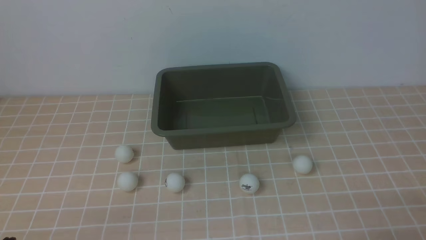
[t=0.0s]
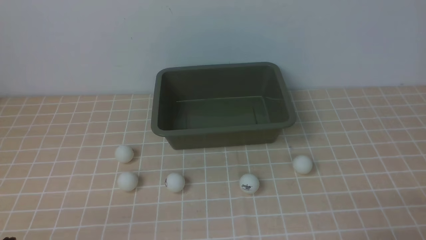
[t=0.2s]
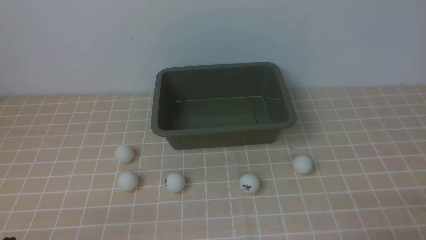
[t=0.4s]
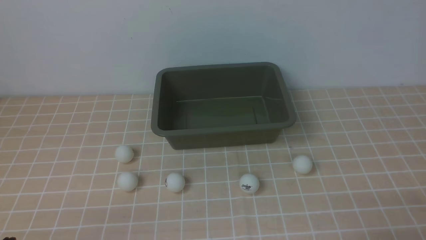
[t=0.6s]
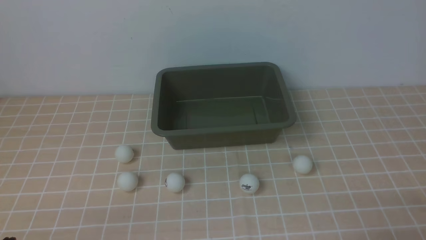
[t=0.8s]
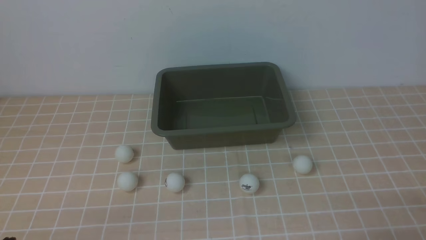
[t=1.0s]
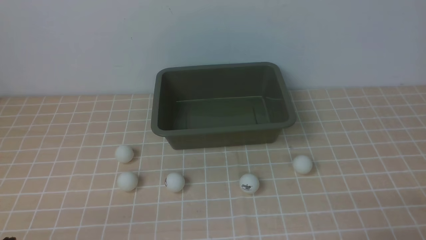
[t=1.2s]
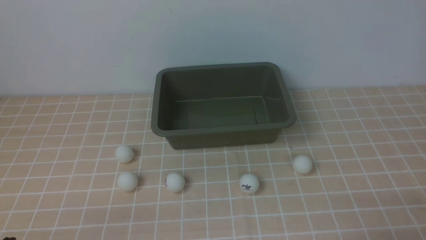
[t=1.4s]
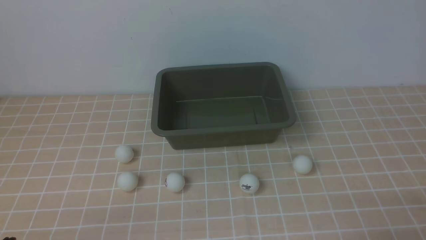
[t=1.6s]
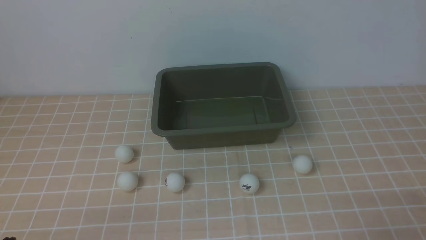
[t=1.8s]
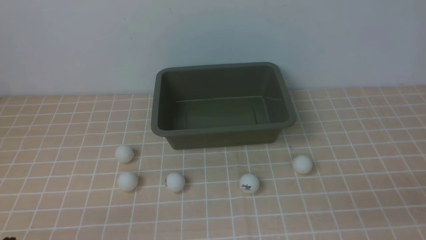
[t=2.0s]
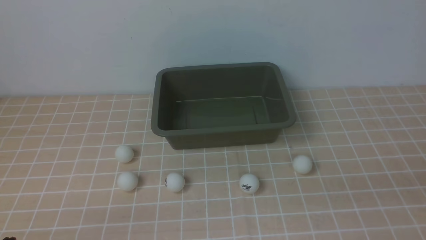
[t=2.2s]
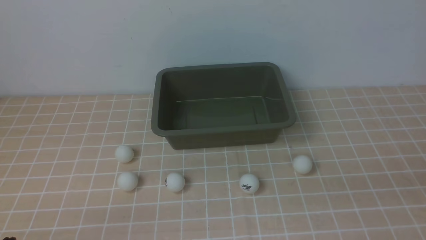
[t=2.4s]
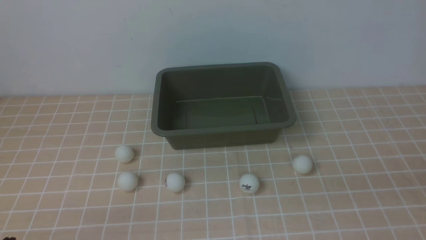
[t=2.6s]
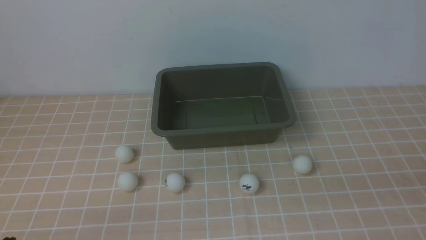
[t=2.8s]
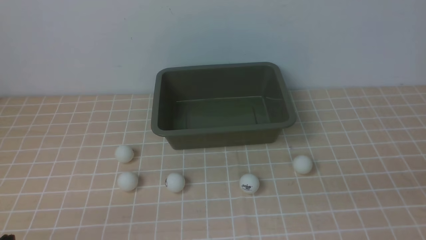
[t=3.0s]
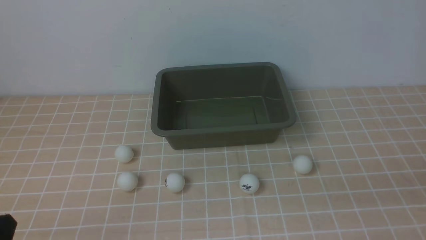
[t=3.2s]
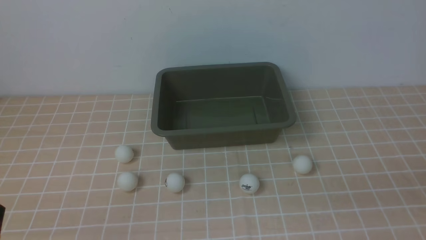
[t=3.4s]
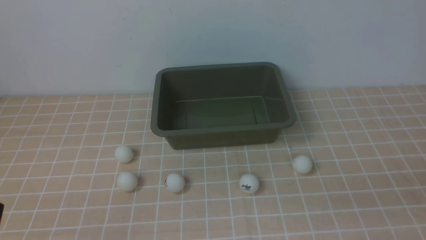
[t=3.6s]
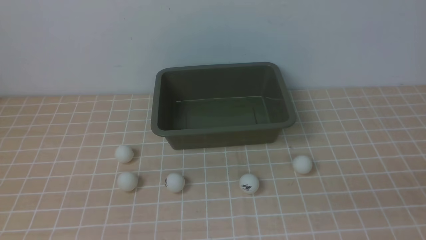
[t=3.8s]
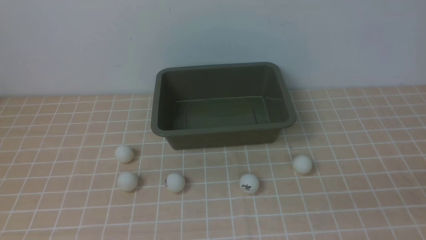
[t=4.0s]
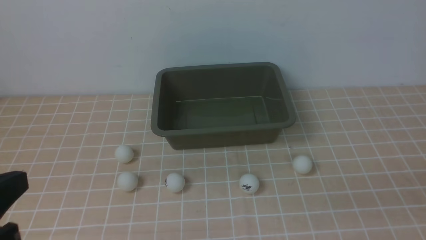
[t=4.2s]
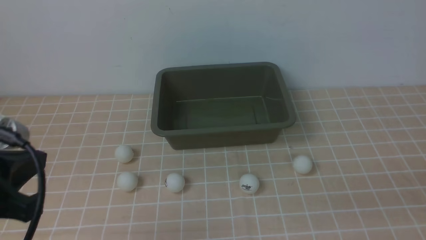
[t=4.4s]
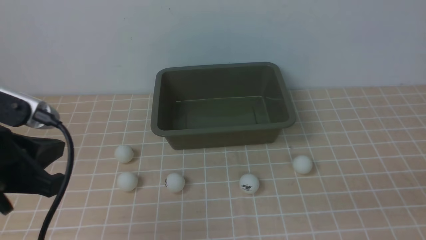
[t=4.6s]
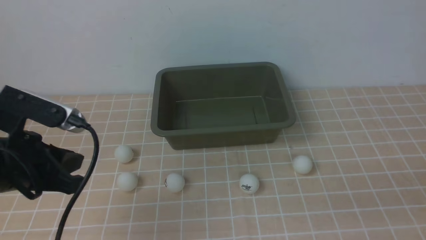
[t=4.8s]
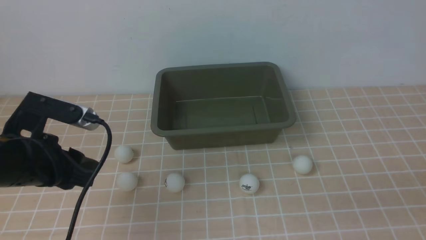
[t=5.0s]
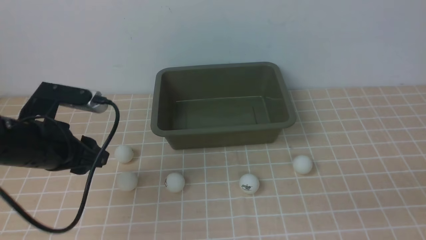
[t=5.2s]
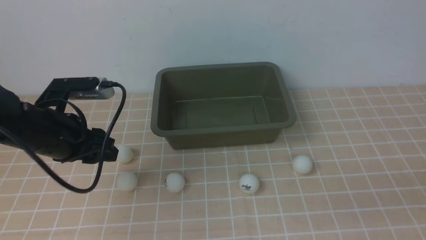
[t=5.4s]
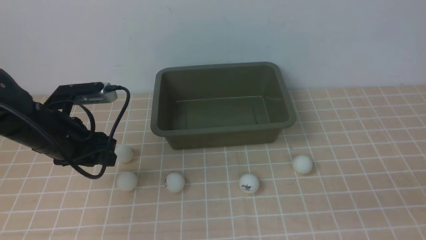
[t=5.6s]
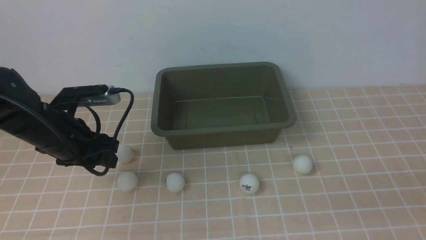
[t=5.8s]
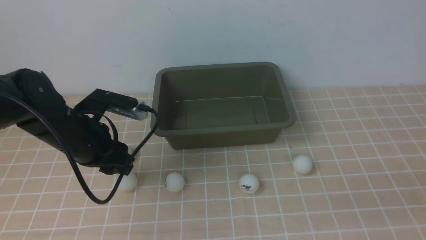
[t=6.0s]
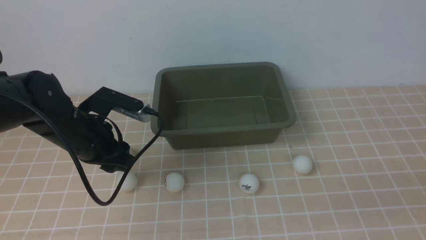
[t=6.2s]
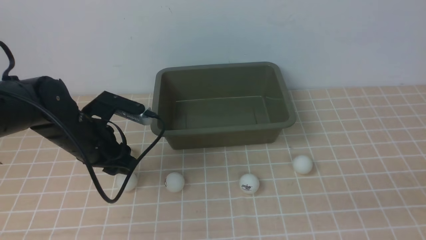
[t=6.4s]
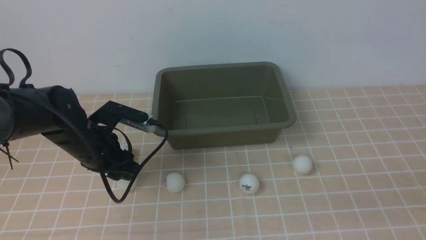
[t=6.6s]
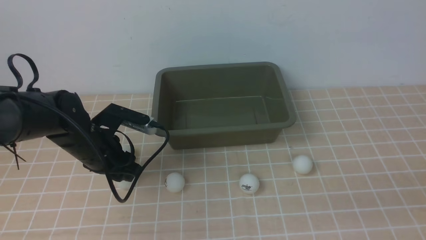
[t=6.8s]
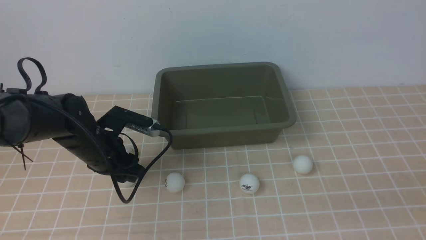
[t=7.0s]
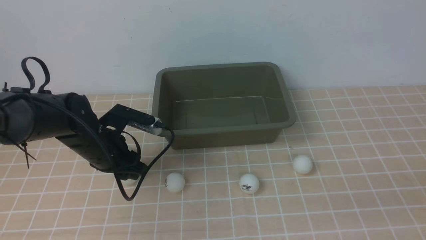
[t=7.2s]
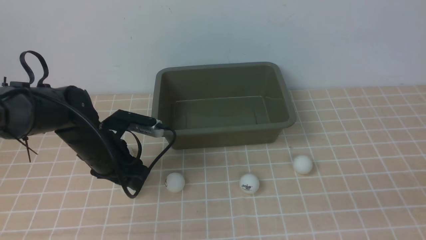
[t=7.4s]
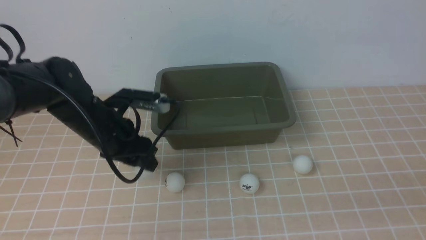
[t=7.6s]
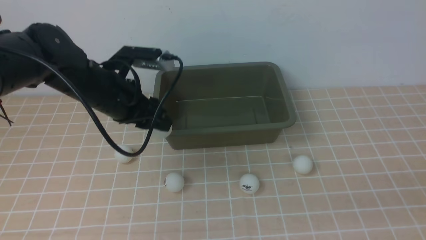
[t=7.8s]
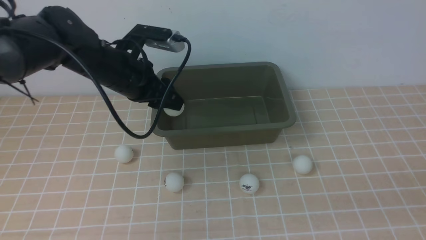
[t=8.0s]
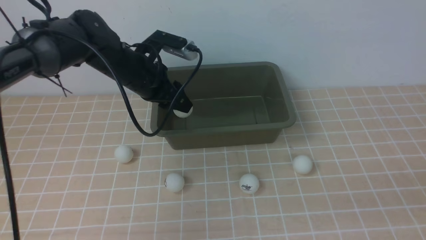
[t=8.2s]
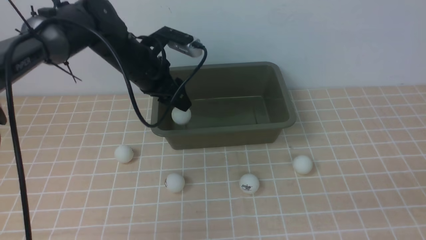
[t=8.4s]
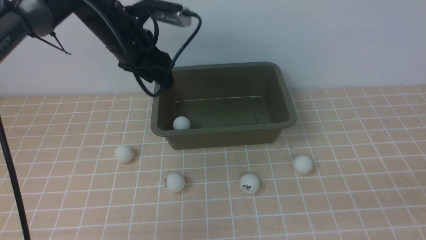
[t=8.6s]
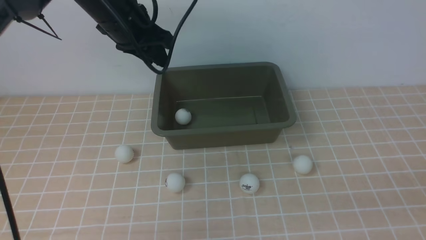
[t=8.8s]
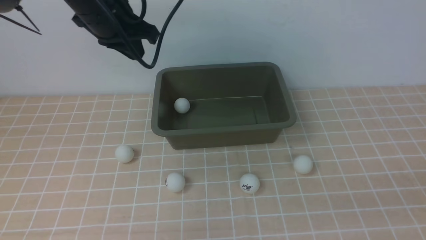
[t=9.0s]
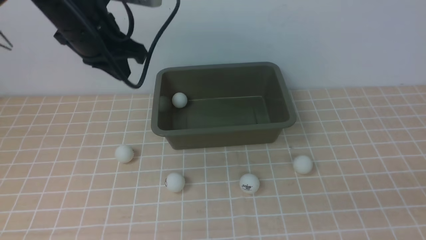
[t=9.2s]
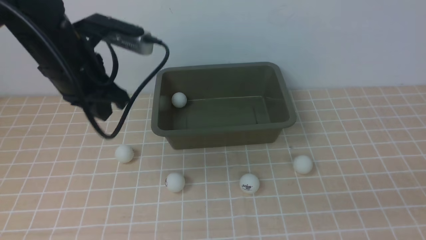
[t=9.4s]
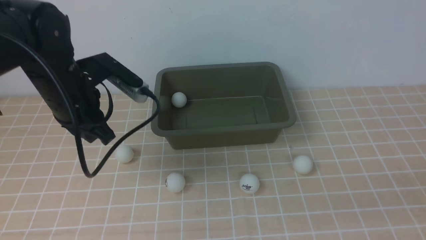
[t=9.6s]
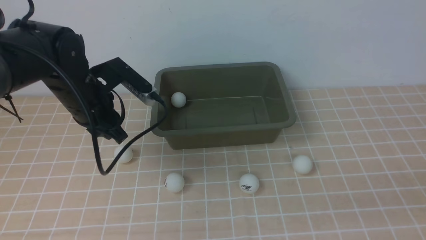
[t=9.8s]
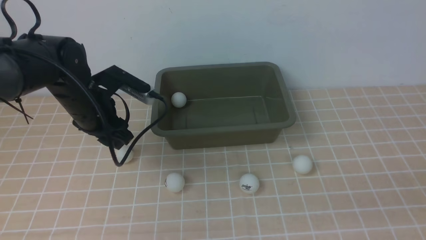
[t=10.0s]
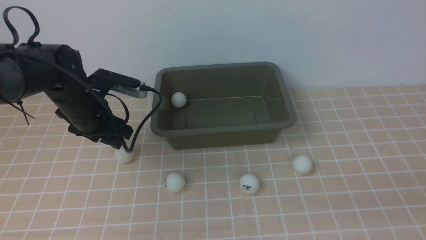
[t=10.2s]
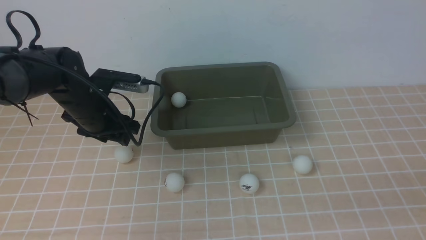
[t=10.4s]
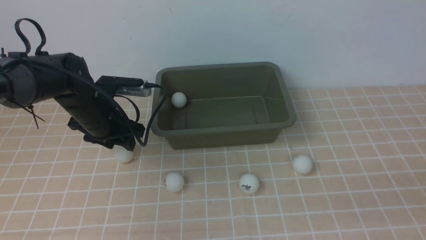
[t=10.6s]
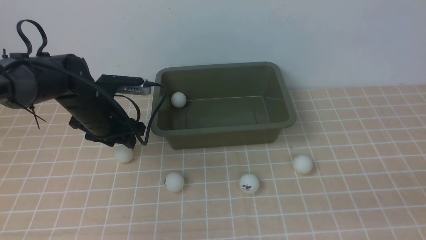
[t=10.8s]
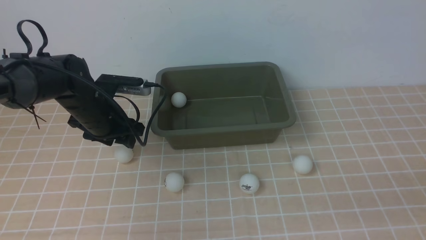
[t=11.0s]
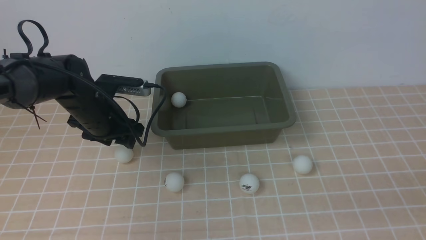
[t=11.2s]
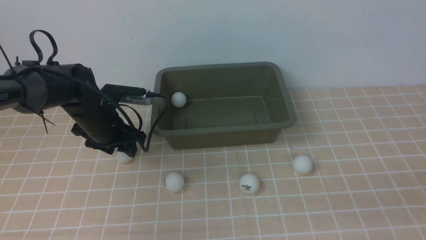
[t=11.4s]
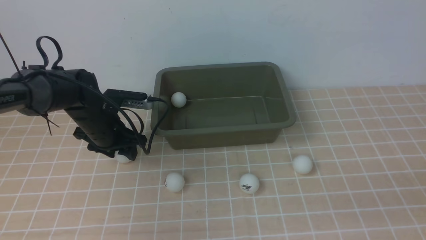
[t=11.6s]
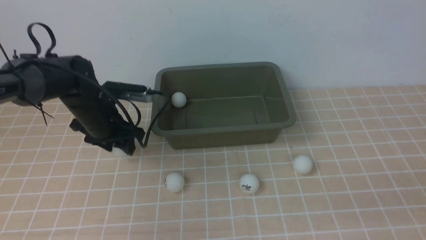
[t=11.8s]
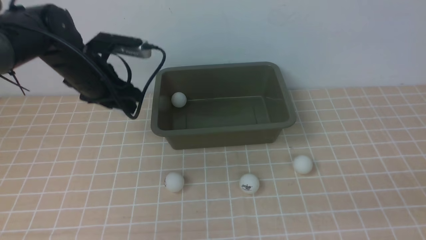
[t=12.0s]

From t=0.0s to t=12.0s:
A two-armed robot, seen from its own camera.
Step, from t=0.0s to t=7.4s: use the left arm to clamp the table tennis ball closest to it.
Step, from t=7.6s to t=8.8s: use the left arm to put the table tennis ball into the box.
From t=0.0s to t=1.6s: Both grippers stay put.
From t=3.0s to t=4.4s: The left gripper heads upward and forward, covering about 15 cm.
From t=4.4s to t=6.0s: The left gripper shifts some 20 cm forward and downward, and opens up.
From t=7.6s to t=9.0s: The left gripper moves upward, some 15 cm, and closes up.
From t=9.0s to t=10.4s: The left gripper shifts some 15 cm downward, and opens up.
From t=10.4s to t=12.0s: The left gripper is displaced upward by approximately 5 cm.

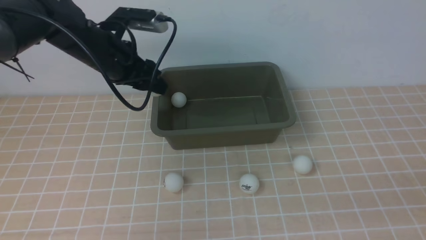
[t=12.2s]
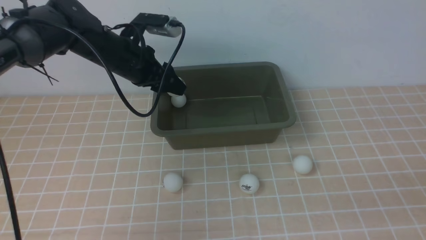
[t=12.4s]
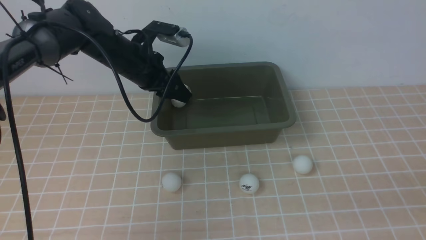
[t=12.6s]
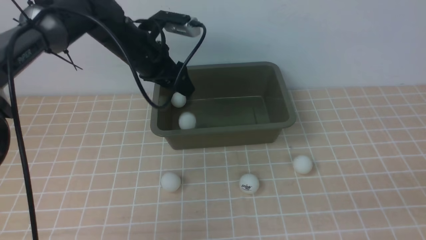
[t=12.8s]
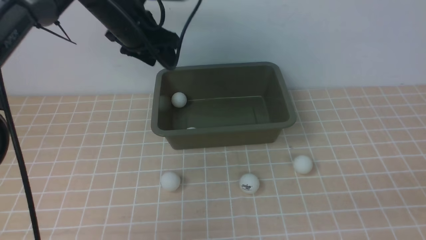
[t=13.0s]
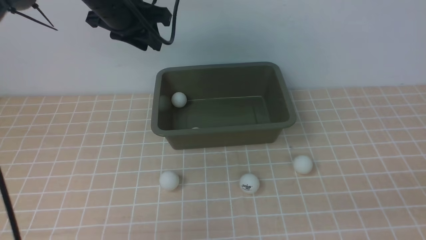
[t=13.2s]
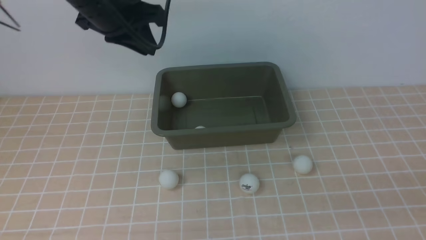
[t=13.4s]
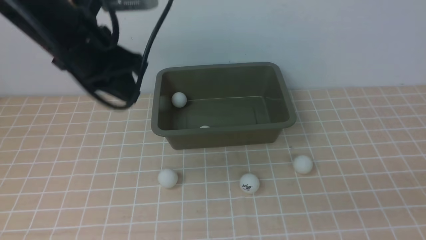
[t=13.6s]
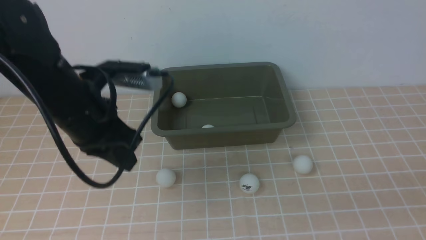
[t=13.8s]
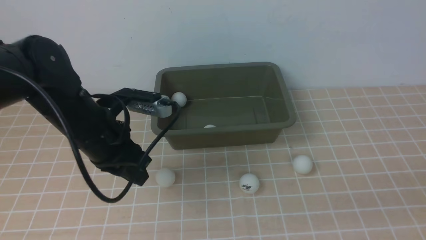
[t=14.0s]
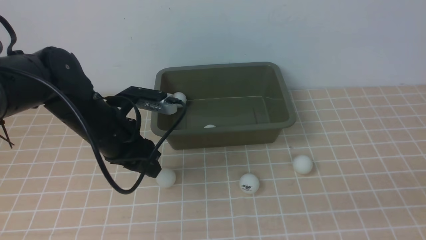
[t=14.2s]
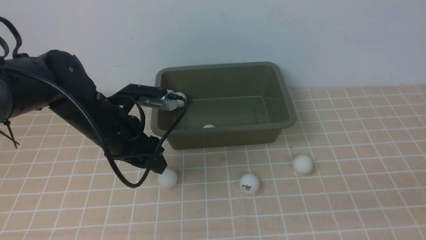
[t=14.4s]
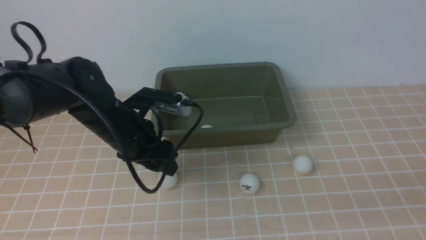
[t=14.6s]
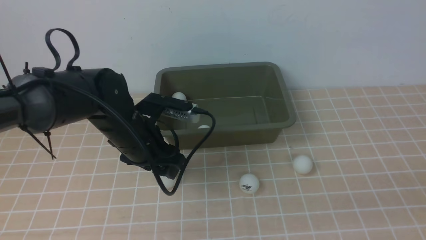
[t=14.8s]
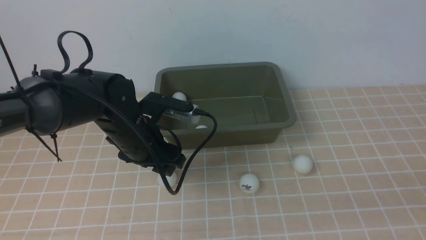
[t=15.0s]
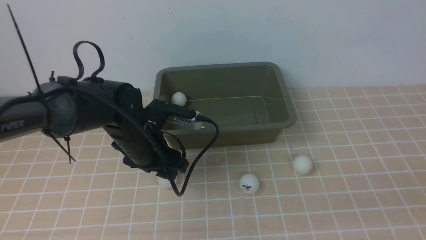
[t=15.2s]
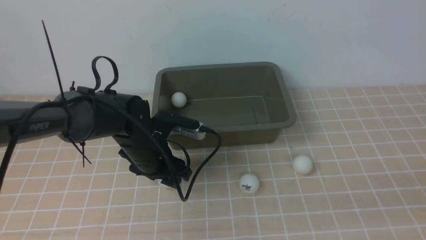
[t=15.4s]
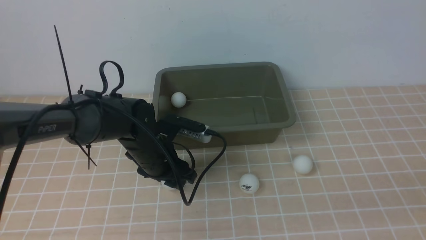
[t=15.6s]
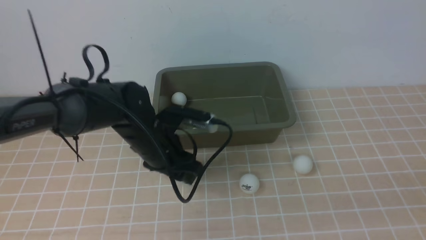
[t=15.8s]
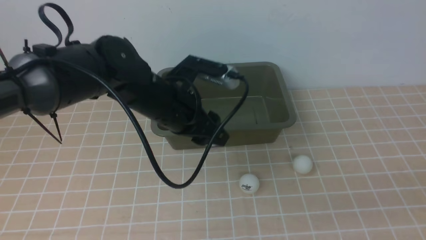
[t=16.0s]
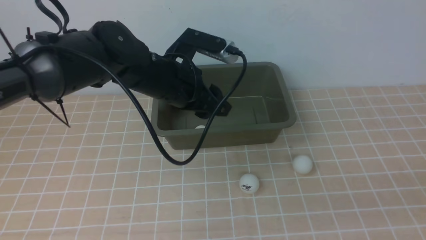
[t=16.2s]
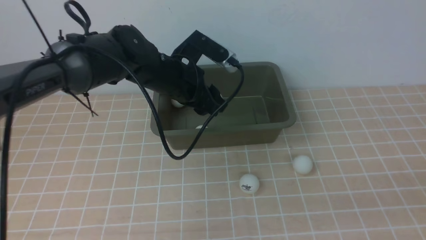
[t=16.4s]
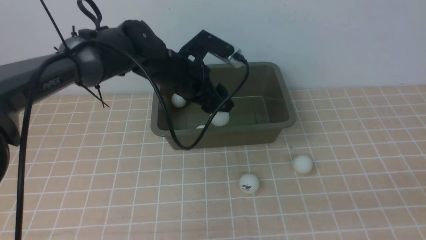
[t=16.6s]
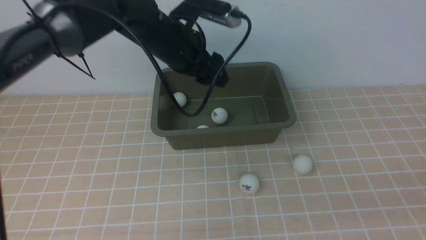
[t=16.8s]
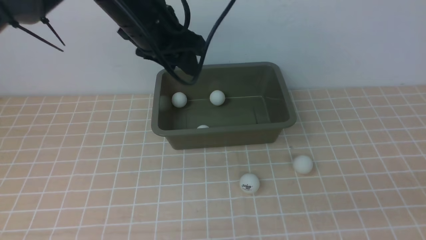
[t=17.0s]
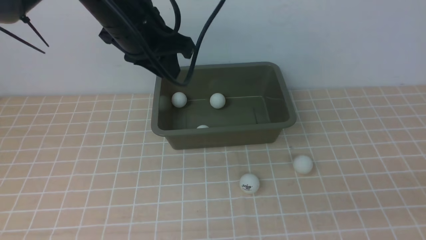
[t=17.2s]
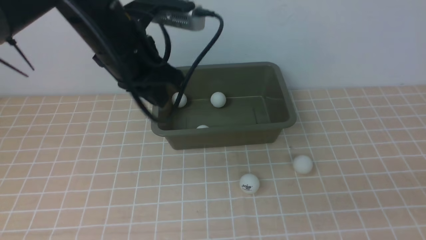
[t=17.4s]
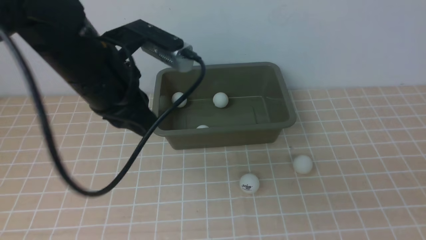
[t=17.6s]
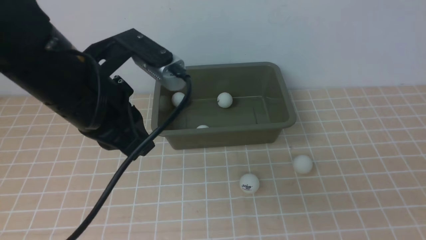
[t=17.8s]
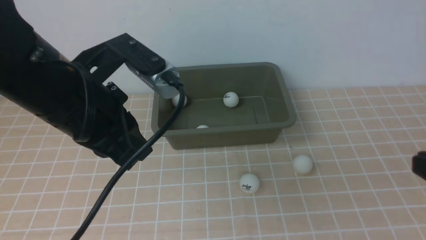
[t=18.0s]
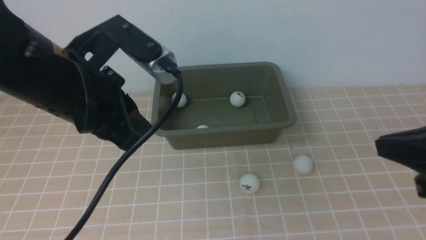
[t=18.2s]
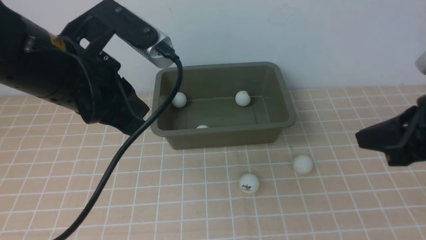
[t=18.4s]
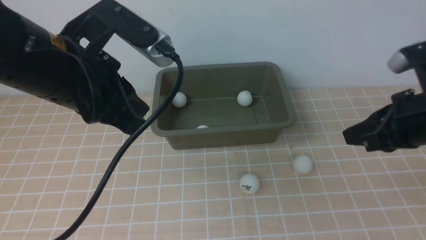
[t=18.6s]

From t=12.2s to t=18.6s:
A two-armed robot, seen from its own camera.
Step, from t=12.4s to t=13.2s: use the left arm to put the table tennis ball into the box.
Step, from t=13.4s to t=16.0s: use the left arm to clamp the table tennis ball closest to it.
Step, from t=16.2s to t=17.0s: use the left arm to put the table tennis ball into the box.
From t=12.2s to t=13.8s: The left gripper goes some 10 cm backward, and closes up.
From t=13.8s to t=15.4s: The left gripper travels downward and to the right by roughly 15 cm, and opens.
From t=15.4s to t=17.0s: The left gripper travels upward by about 20 cm.
From t=17.0s to t=18.6s: The right gripper heads forward, covering about 20 cm. Meanwhile the left gripper heads backward, covering approximately 15 cm, and closes.
